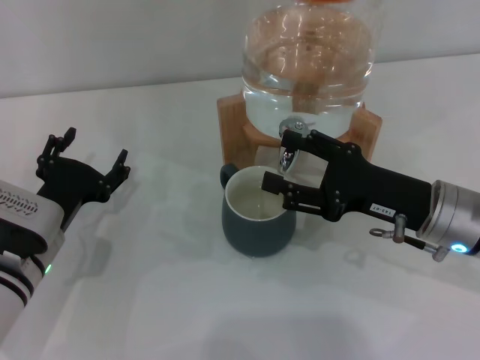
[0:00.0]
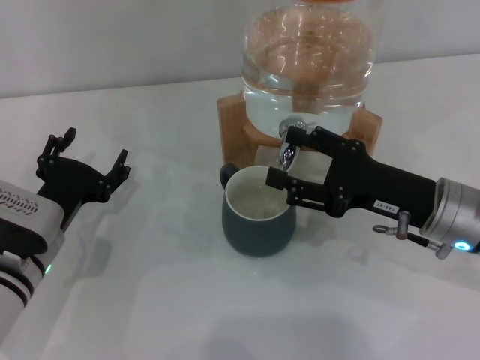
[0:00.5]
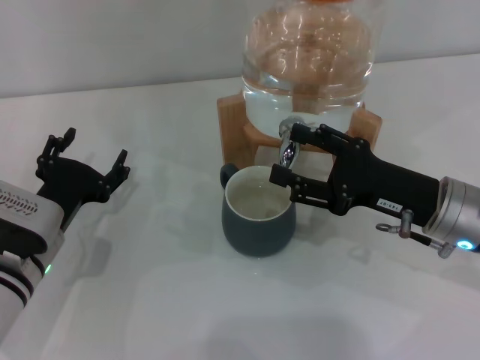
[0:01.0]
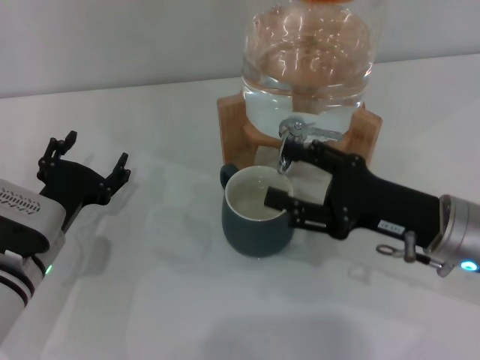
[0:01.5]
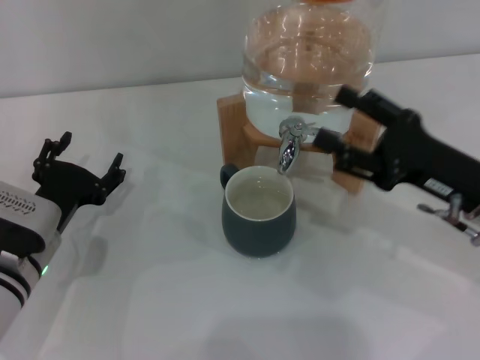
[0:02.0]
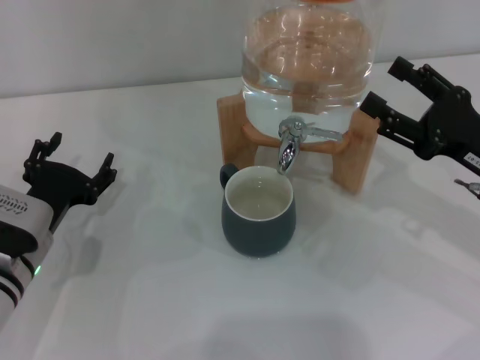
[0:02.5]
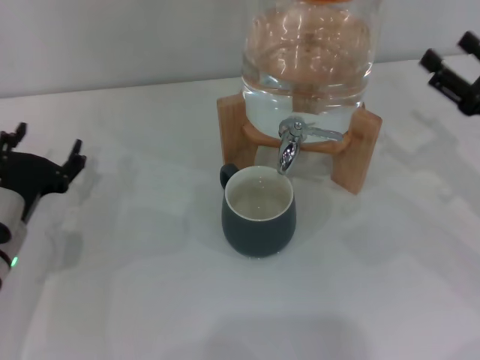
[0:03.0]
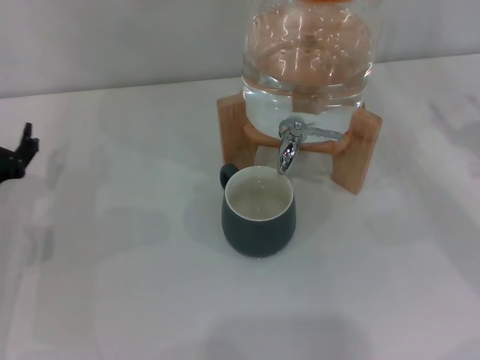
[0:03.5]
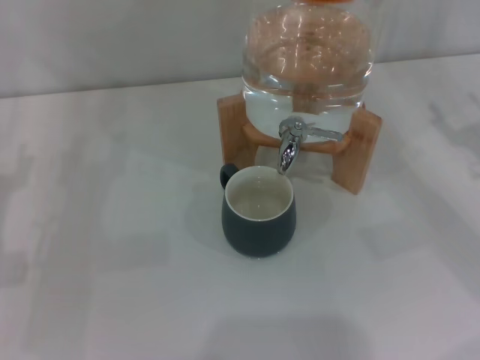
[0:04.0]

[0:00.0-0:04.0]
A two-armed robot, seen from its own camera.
Task of the whole recording: the left gripper pick up the black cup and place it horizontally under the faucet, the right gripper turn on the faucet to fill the cup, and then turn off the faucet.
0:00.0 to 0:02.0: The grippers stay close to where they were, moving slightly.
0:02.0 to 0:04.0: The right gripper goes about 10 cm to the right. The left gripper travels to the left by roughly 5 cm.

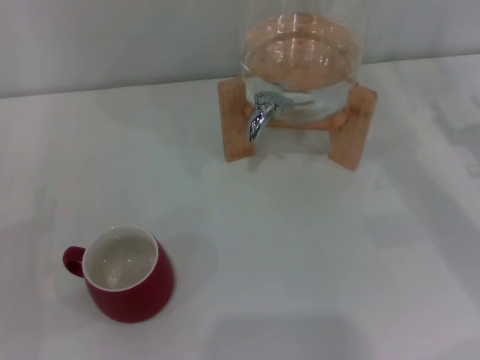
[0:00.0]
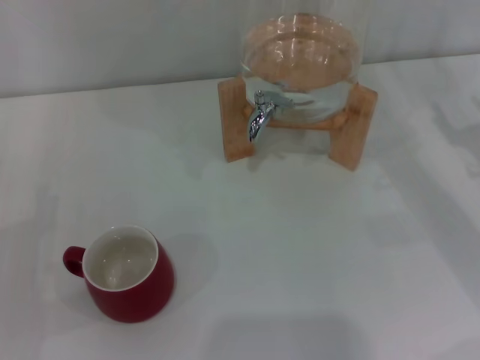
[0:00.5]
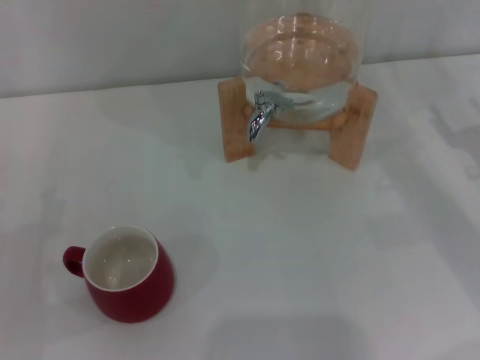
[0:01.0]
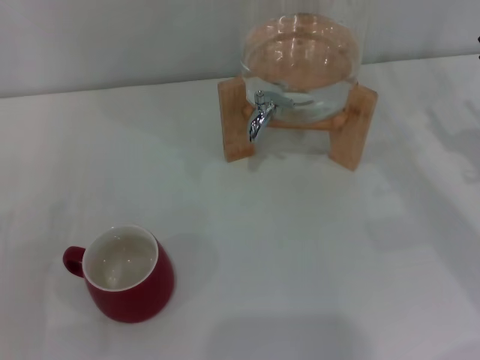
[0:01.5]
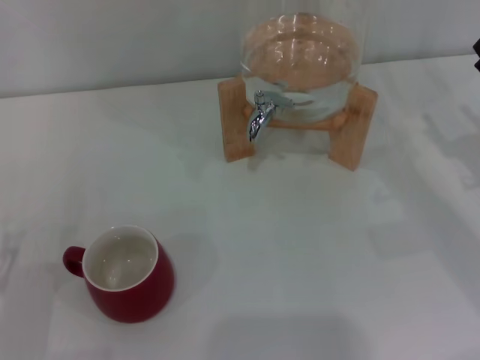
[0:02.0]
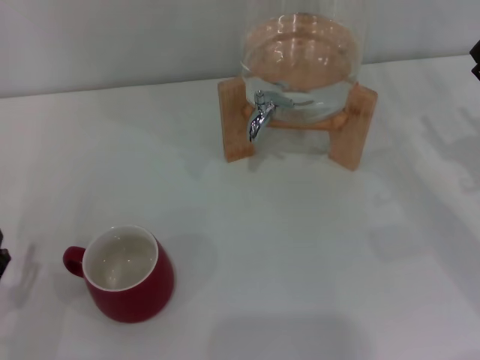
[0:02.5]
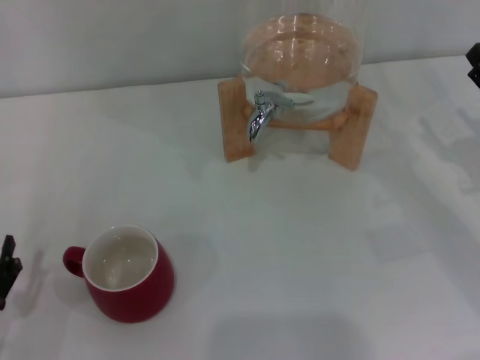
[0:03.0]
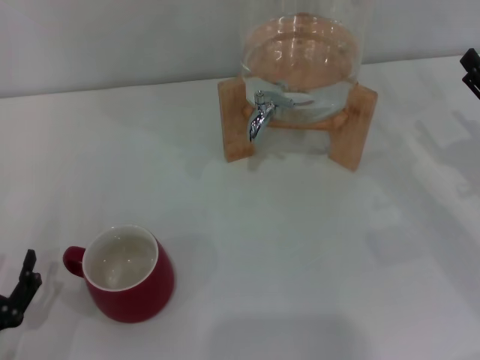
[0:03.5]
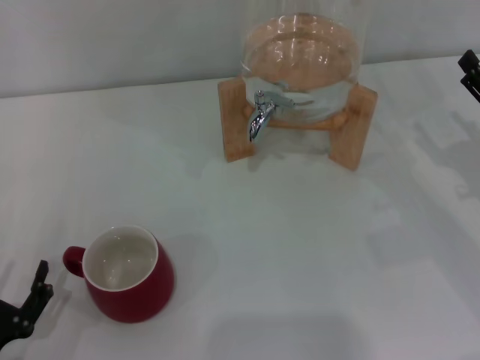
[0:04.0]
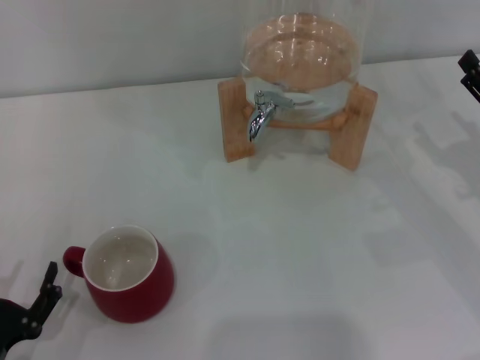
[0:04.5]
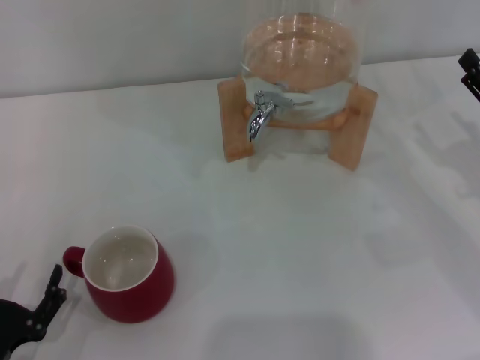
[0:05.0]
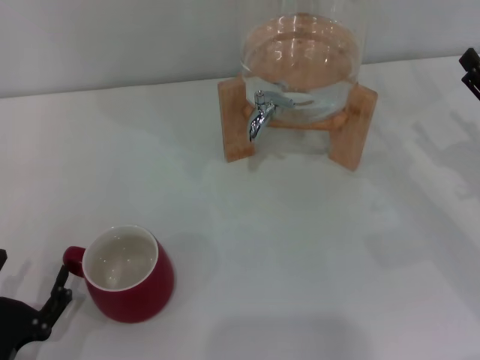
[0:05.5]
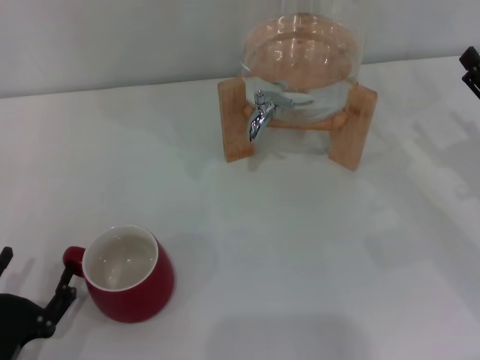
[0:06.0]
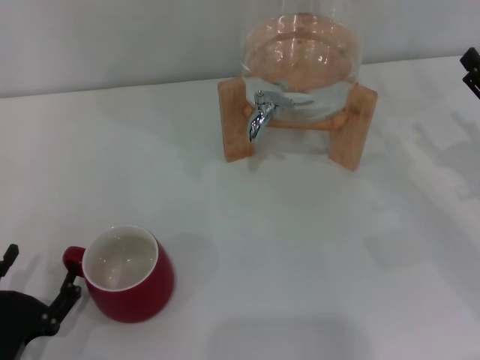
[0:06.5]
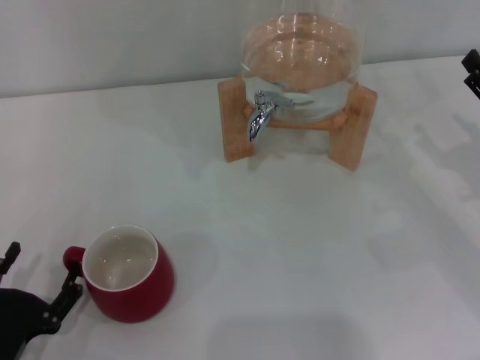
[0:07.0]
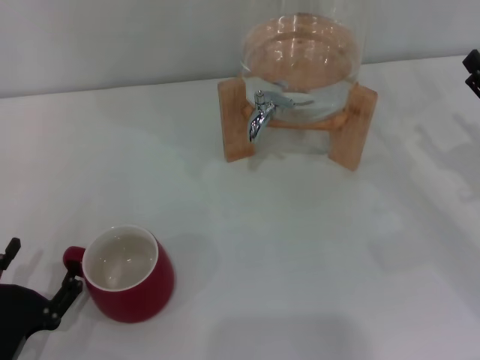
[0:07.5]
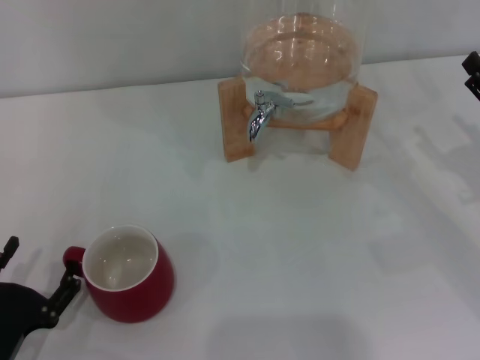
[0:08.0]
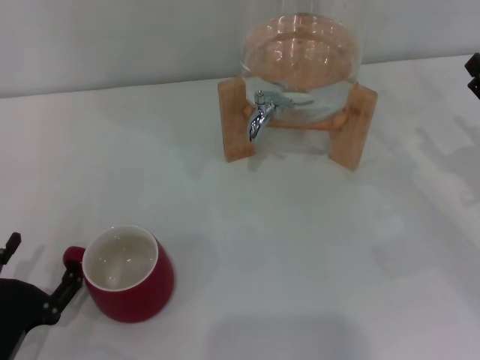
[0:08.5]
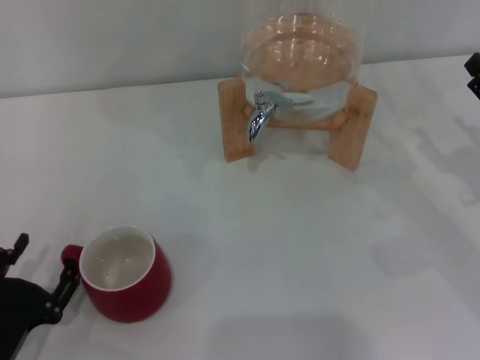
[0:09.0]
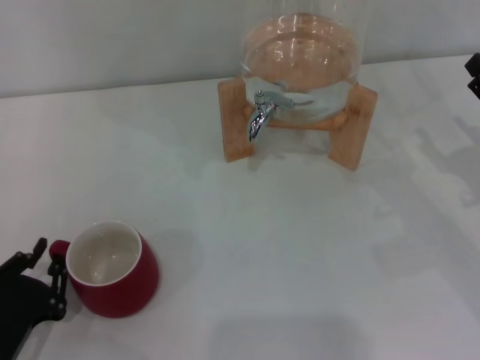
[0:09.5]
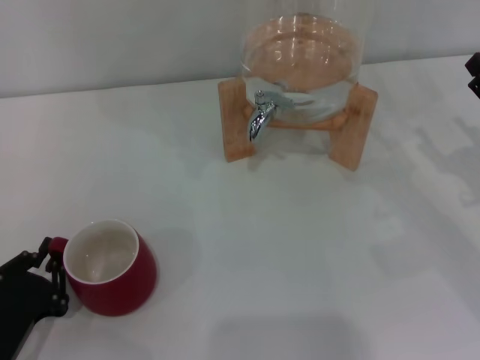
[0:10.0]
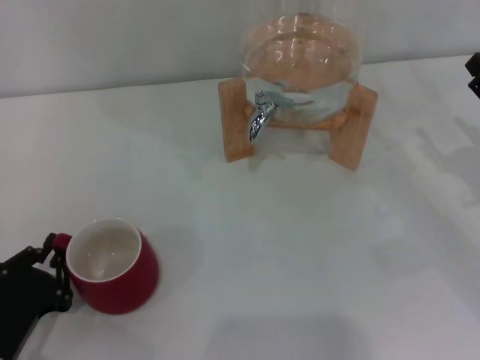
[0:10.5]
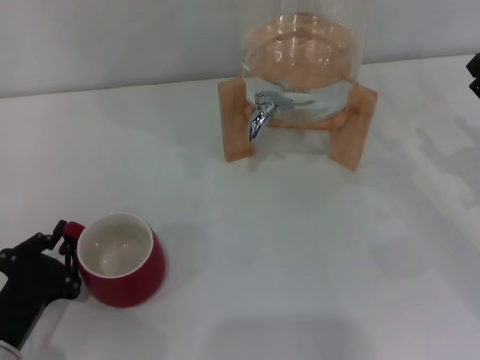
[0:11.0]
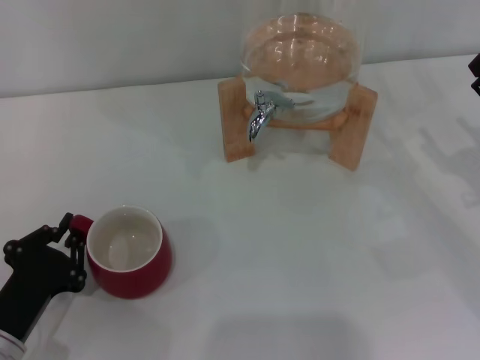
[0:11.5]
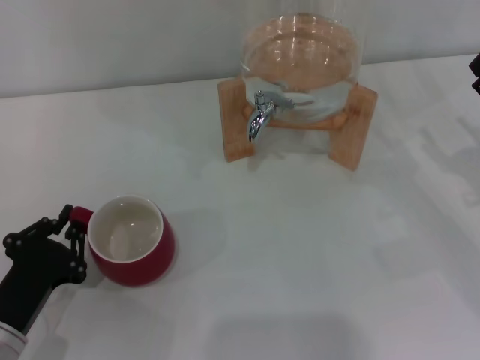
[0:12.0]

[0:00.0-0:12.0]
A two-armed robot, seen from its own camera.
Task of the whole recording: the left gripper pick up the red cup and place it horizontally under the faucet, the right gripper turn on the faucet to fill the cup, and then turn off the faucet.
0:02.0 to 0:04.0: The grippers stay close to where they were, moving slightly.
0:04.0 to 0:06.0: The grippers stay close to where they were, moving slightly.
0:06.0 to 0:08.0: Both grippers stay put.
0:08.0 to 0:10.0: The left gripper closes up.
0:10.0 to 0:12.0: The grippers stay close to where they were, moving slightly.

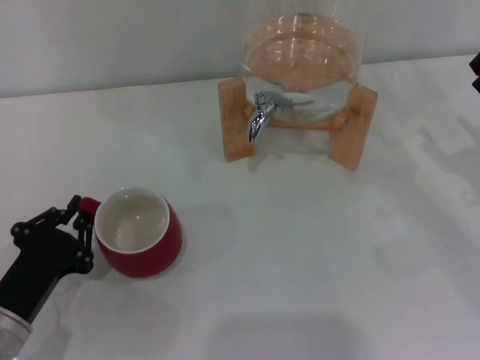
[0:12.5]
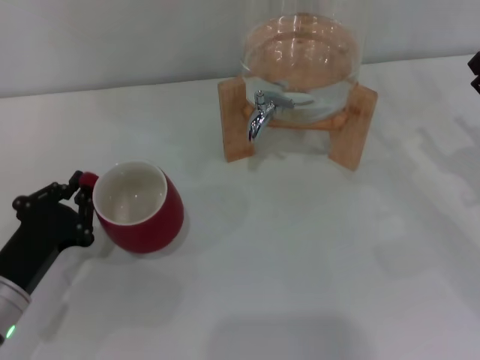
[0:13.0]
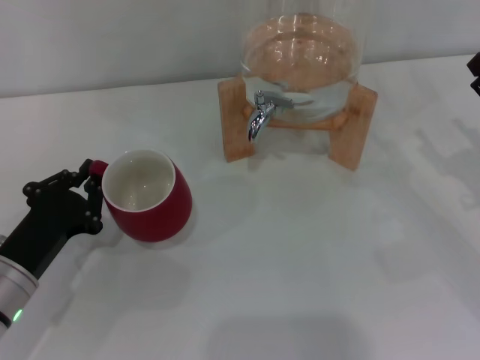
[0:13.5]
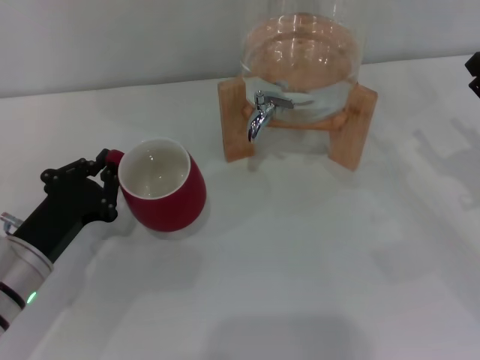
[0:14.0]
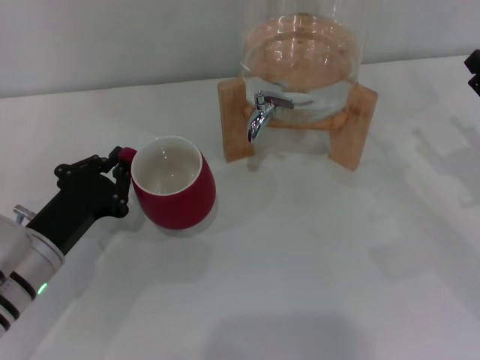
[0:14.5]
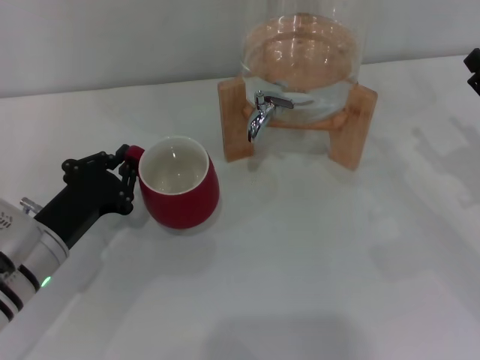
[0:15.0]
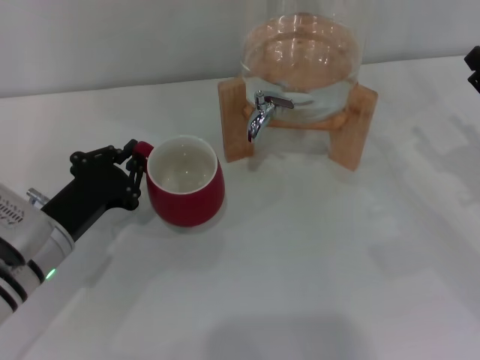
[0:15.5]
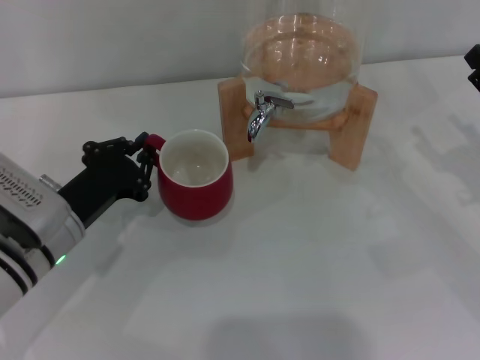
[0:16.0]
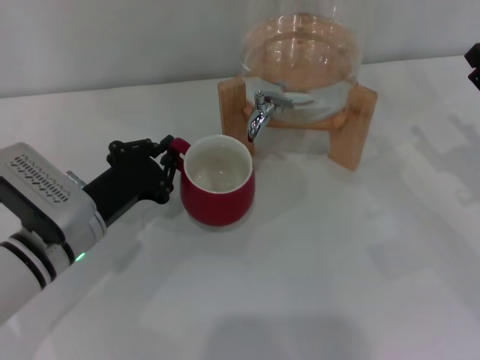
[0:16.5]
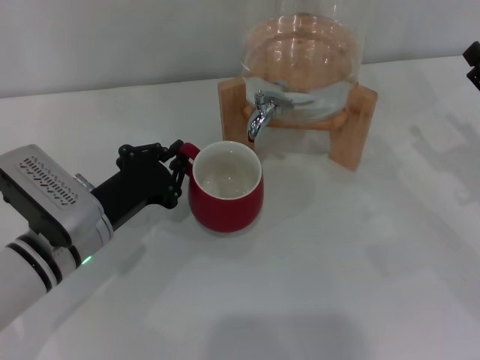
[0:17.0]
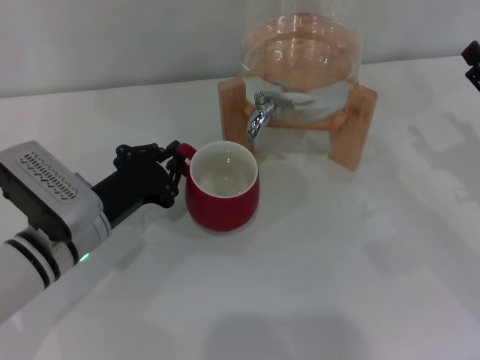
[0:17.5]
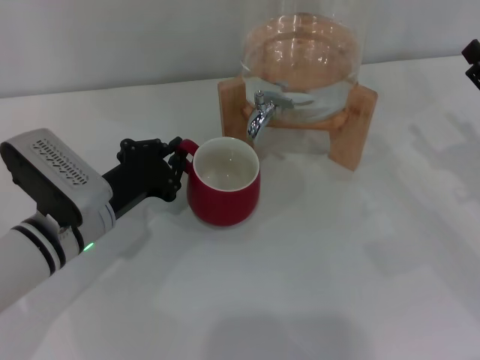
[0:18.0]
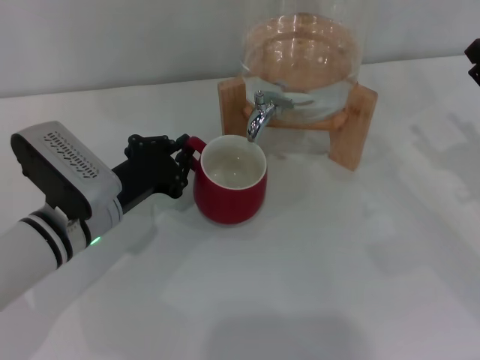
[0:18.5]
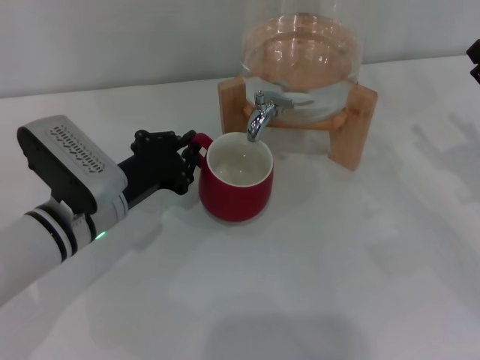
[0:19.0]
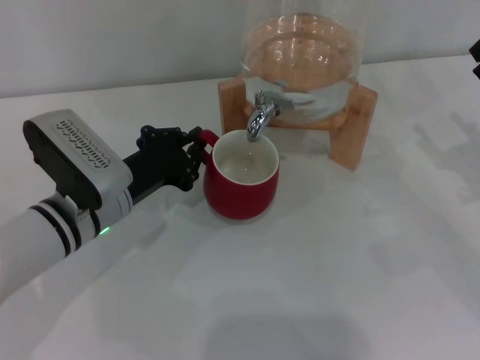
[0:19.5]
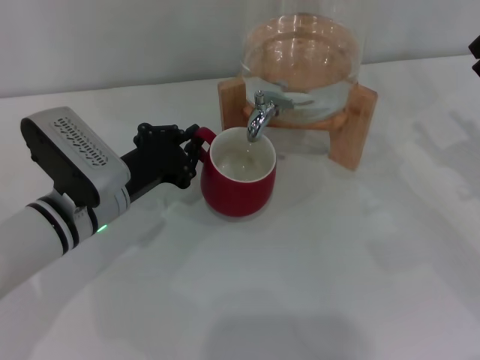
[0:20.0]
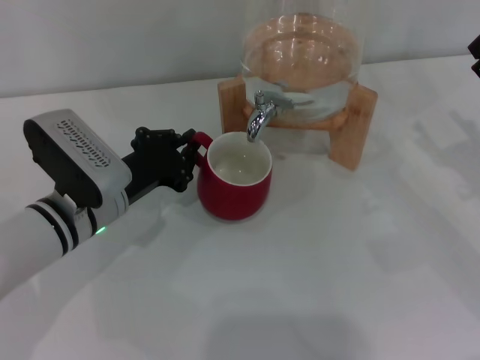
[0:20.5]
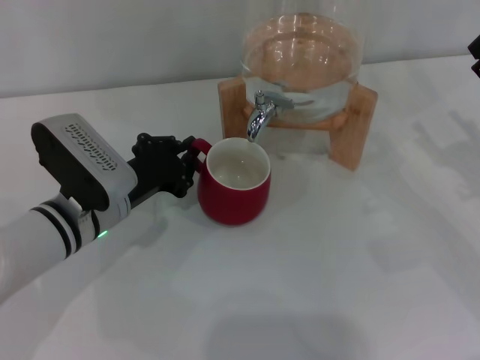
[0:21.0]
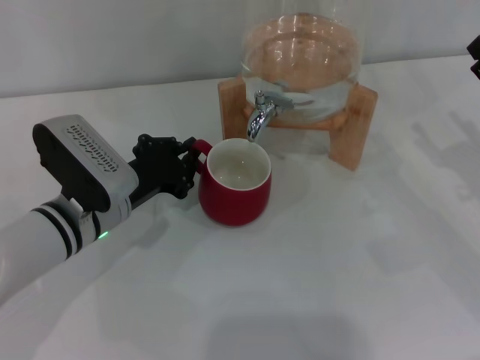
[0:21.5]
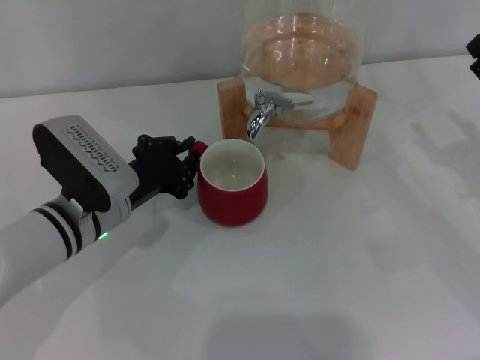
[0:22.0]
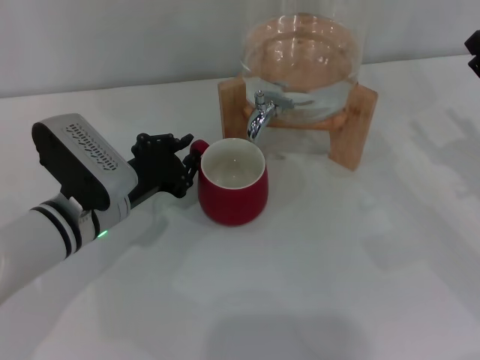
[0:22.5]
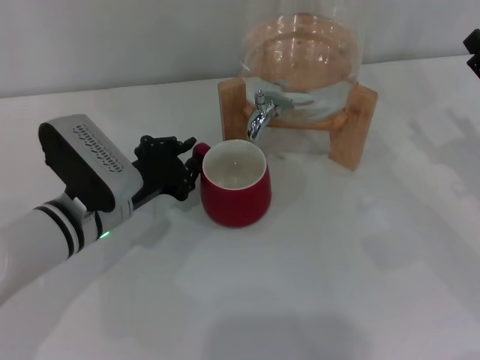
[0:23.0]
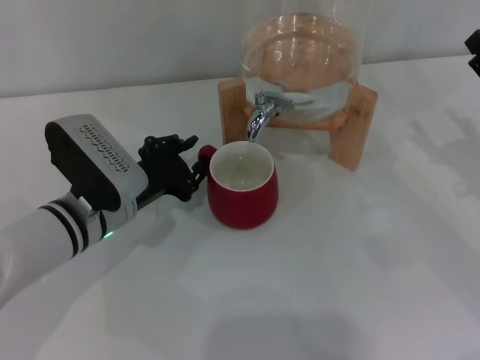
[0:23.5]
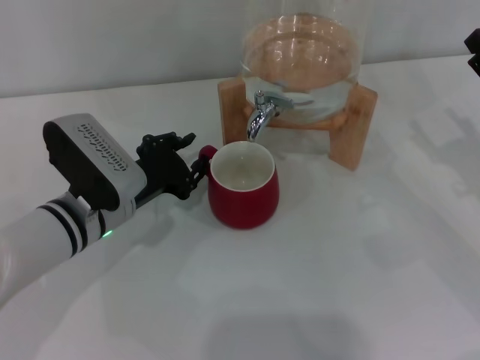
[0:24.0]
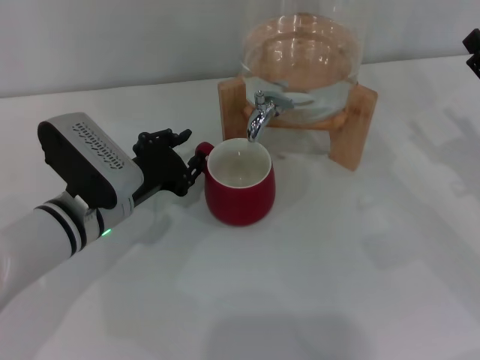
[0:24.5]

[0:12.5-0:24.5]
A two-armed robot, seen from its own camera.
Task of the whole recording: the left gripper pick up the red cup and place it horizontally under the faucet, the right gripper turn on the faucet to fill the cup, and then turn off the faucet.
0:12.5 to 0:14.5: The left gripper heads forward, covering about 5 cm.
0:14.5 to 0:16.5: The left gripper shifts by some 5 cm.
0:16.5 to 0:20.5: The grippers make only small movements.
0:20.5 to 0:24.5: The two grippers keep their place.
